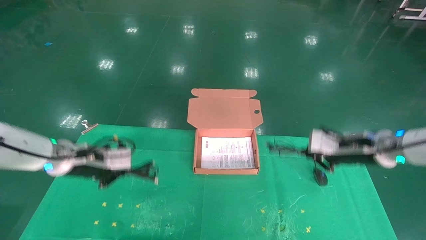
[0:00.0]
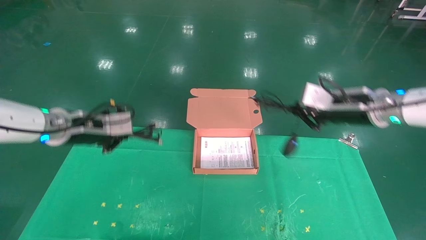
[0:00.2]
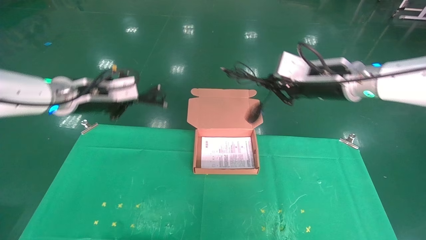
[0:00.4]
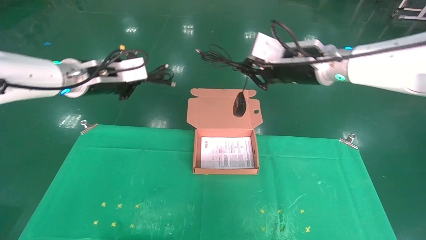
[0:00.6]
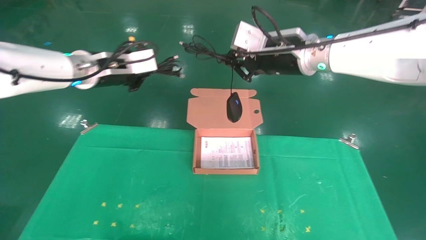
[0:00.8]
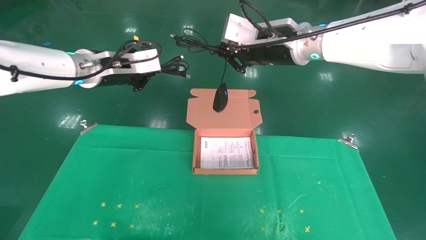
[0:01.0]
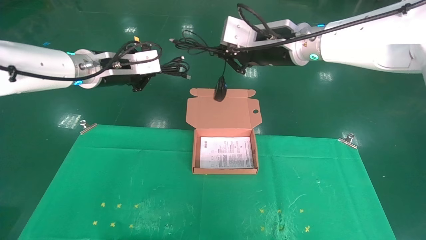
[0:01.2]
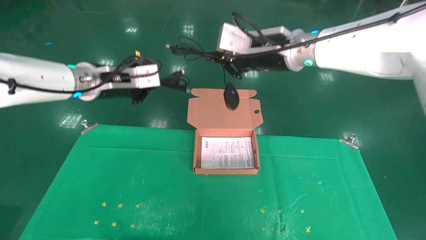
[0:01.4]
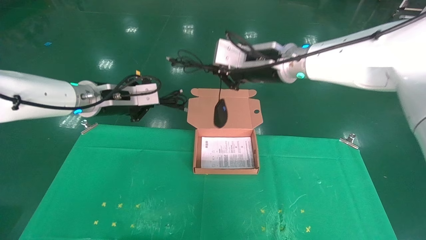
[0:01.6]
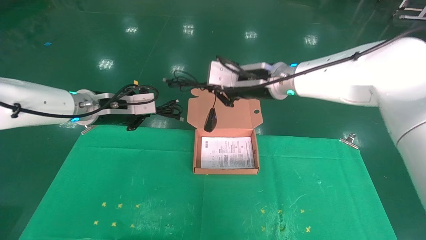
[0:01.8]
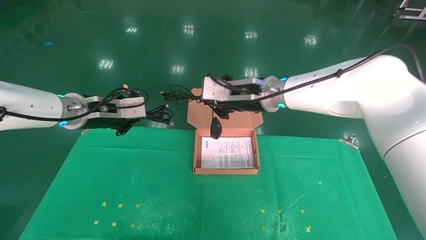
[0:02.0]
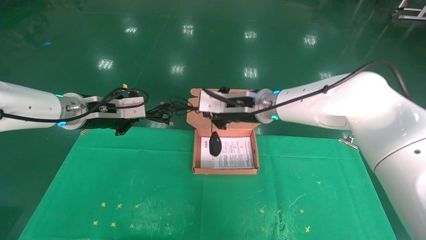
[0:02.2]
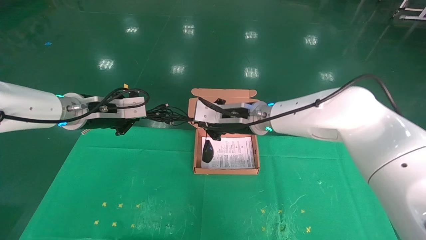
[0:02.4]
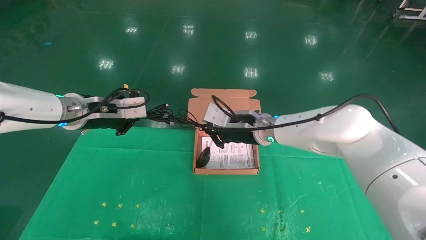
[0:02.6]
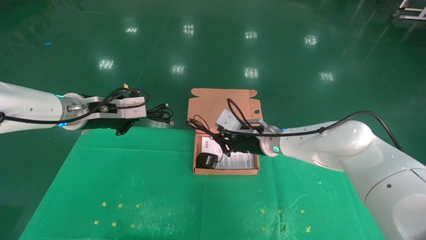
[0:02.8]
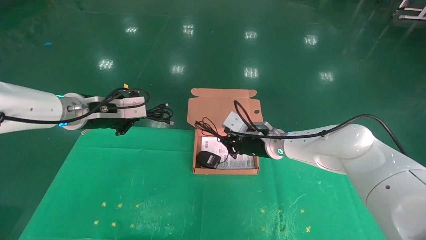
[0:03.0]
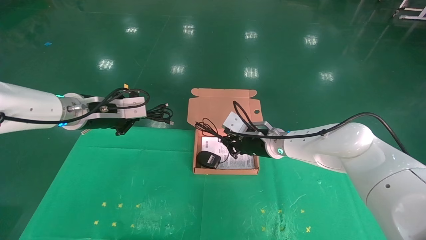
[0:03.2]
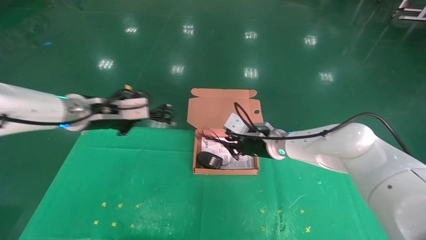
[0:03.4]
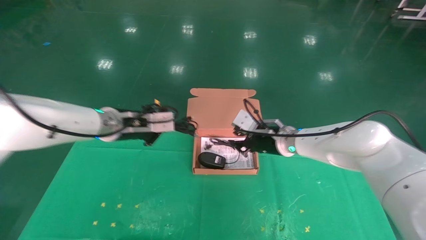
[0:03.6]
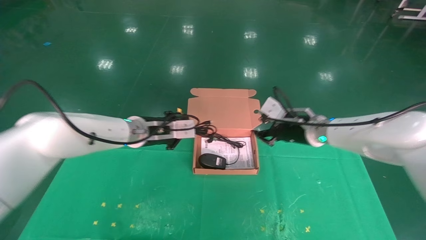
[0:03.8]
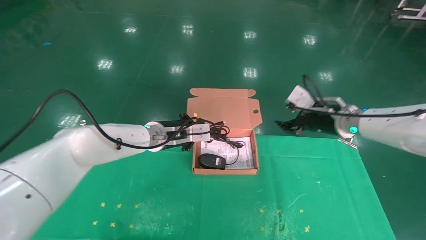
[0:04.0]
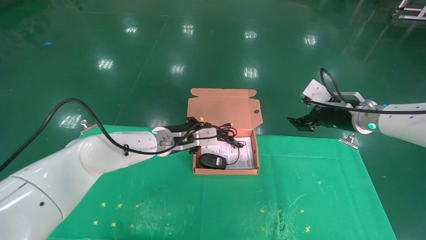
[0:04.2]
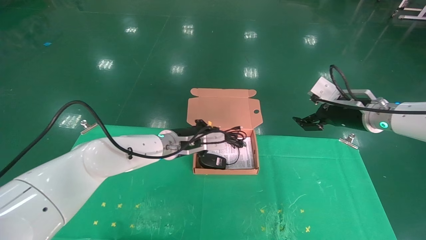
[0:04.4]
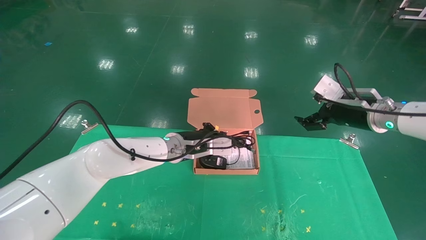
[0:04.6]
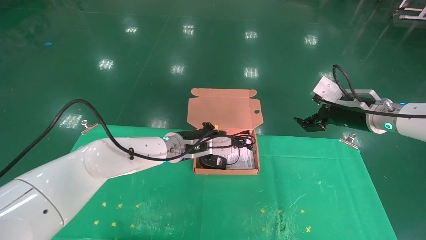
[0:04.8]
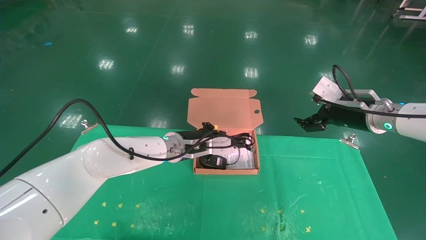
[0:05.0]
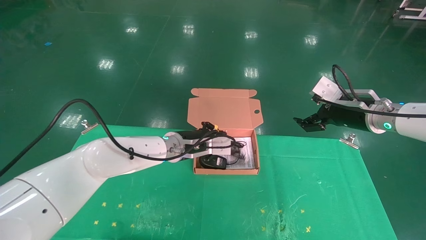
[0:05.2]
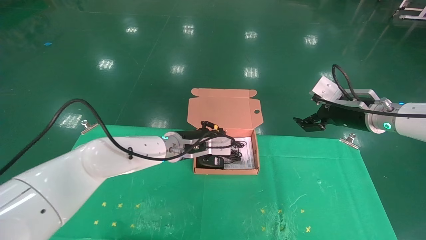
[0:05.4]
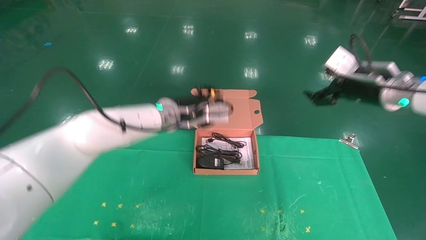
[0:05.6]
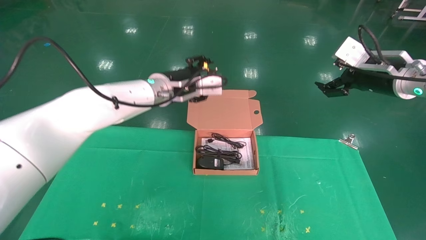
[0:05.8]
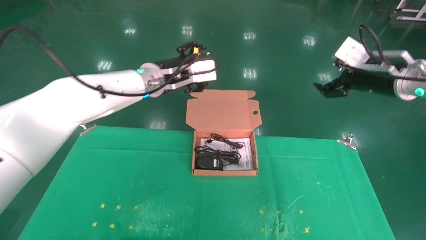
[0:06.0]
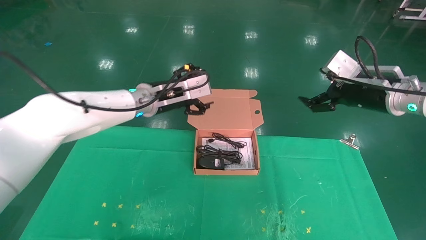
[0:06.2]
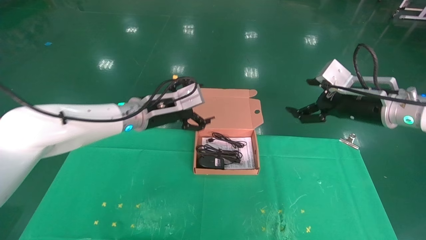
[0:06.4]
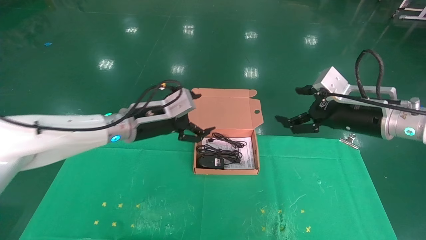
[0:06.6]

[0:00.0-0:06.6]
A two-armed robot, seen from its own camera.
Task of the whole recording: grasp data cable left put into box grasp mouse right put into box.
Step, 0:00.0 to 0:05.4: Place the mouse and power cord into the box.
0:00.0 to 0:01.6: The right gripper heads to the left and upward, covering some 25 cm, while the left gripper shifts about 15 cm upward and to the right.
0:01.6 to 0:03.2: The right gripper heads downward, covering some 20 cm.
0:03.2 to 0:05.0: The left gripper moves to the right and downward, about 20 cm, while the right gripper heads to the right and upward, covering about 20 cm, and opens up.
0:05.0 to 0:06.6: The right gripper goes approximately 5 cm backward, while the left gripper shifts about 10 cm to the left and upward, and opens.
